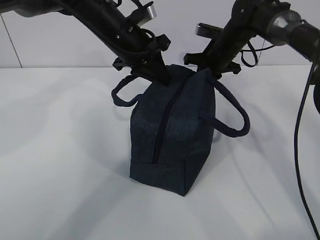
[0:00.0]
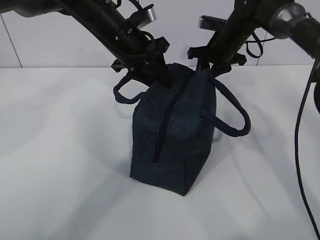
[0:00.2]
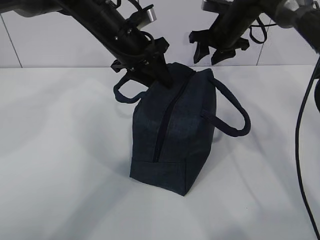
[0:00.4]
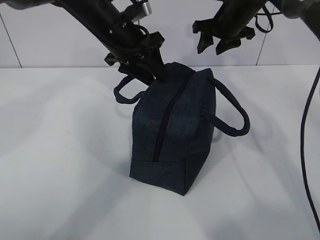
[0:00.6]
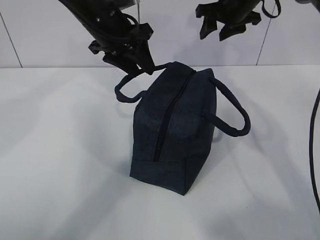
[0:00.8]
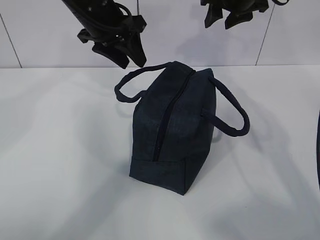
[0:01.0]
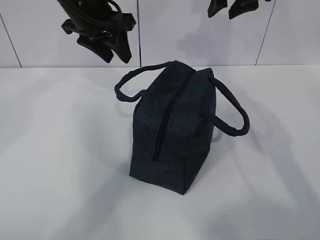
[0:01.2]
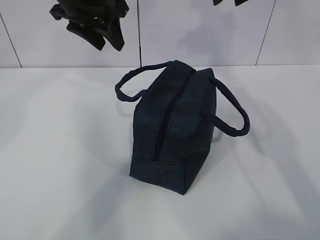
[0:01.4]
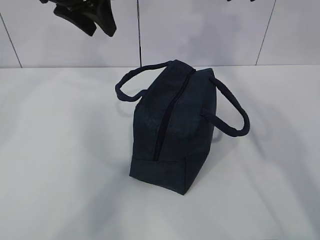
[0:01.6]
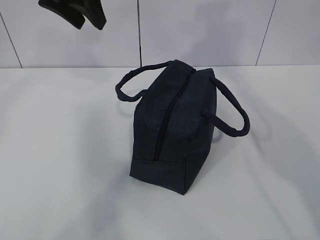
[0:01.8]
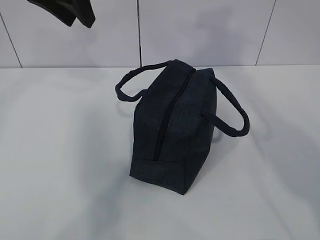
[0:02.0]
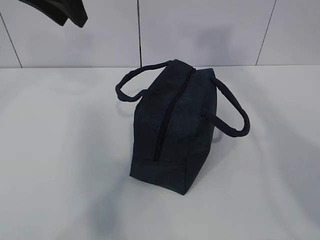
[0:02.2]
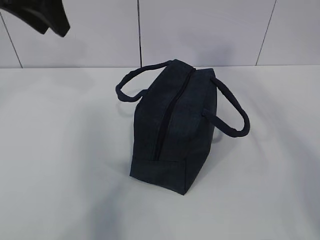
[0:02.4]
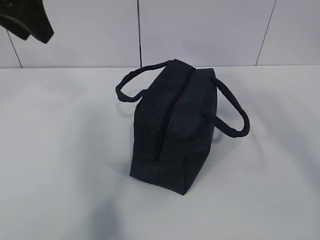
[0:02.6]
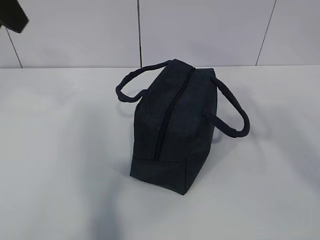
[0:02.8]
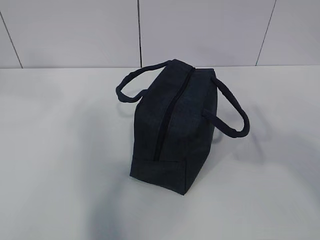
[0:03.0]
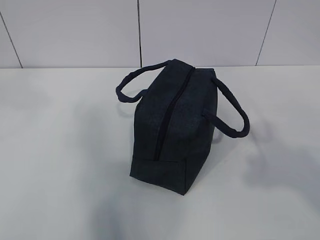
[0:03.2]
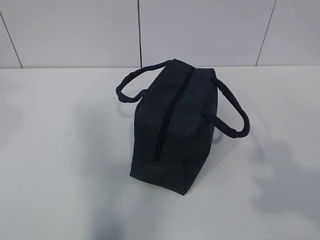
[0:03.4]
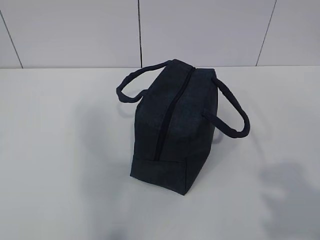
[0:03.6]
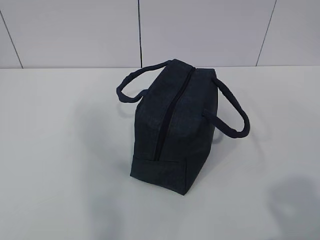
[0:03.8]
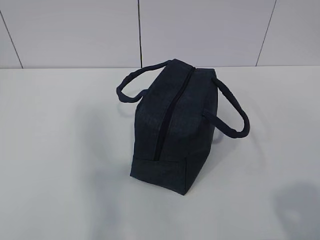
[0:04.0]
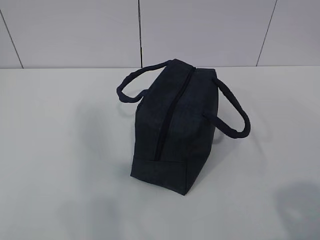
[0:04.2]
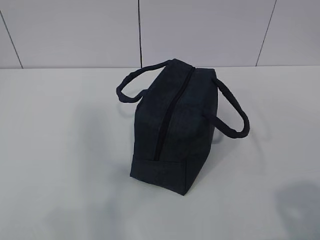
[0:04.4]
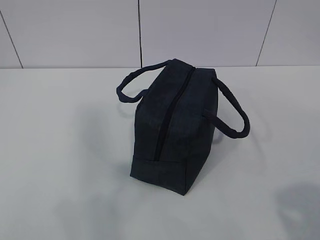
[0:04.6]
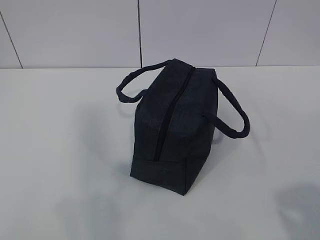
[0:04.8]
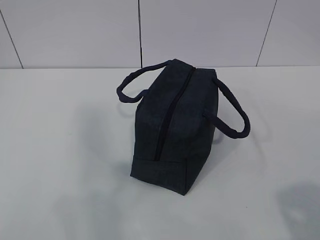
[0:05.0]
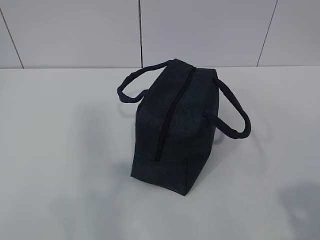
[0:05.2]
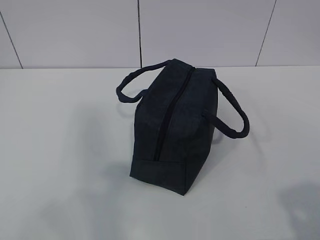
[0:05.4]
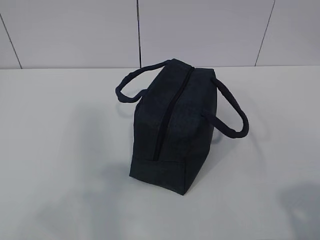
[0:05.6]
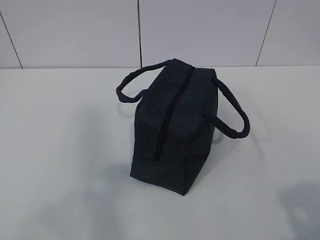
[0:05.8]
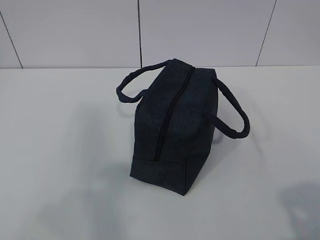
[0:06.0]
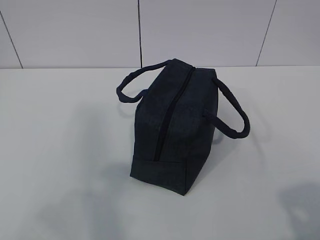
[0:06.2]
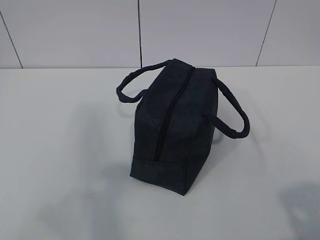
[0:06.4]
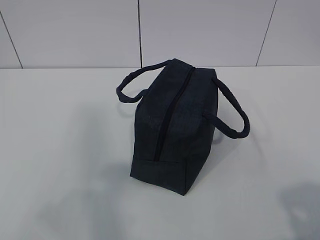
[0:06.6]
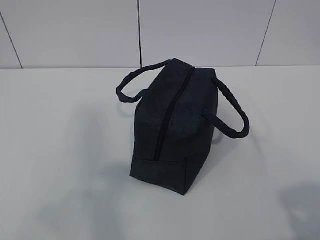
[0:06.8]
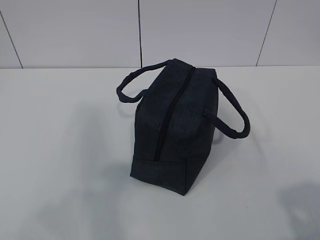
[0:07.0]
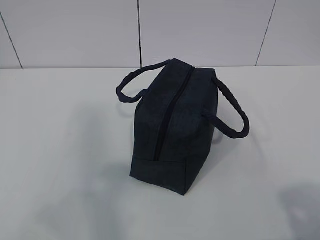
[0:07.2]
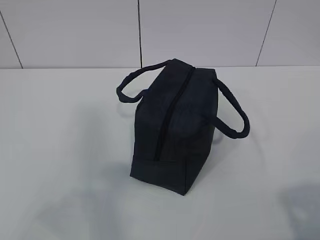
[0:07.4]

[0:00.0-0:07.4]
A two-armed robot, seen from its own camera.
0:00.0 to 0:01.4: The right gripper is displaced upward by roughly 20 cm, and opens its fingers, while the left gripper shifts about 10 cm upward and to the left, and opens.
0:01.4 to 0:03.0: The left gripper heads backward, upward and to the left, covering approximately 25 cm; the right gripper is displaced backward by roughly 40 cm.
0:03.0 to 0:04.4: The right gripper goes roughly 15 cm downward and backward.
0:06.0 to 0:07.4: Neither gripper changes place.

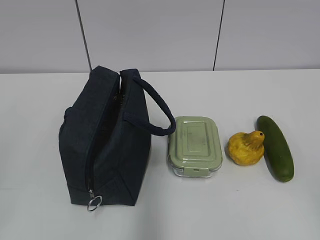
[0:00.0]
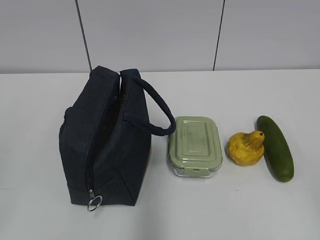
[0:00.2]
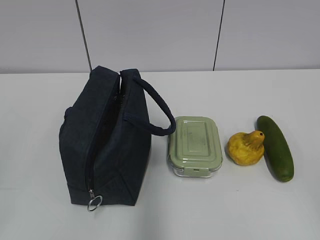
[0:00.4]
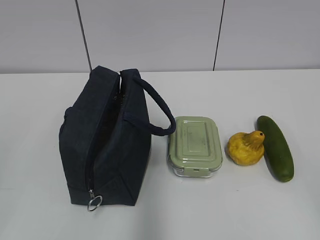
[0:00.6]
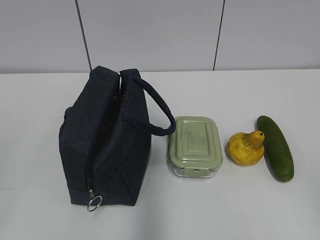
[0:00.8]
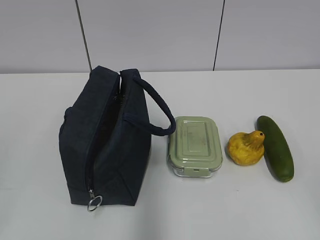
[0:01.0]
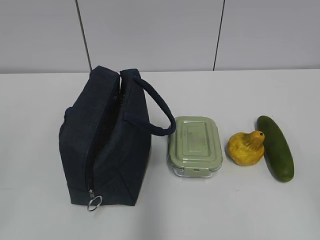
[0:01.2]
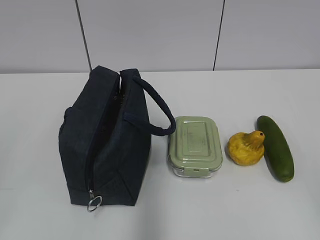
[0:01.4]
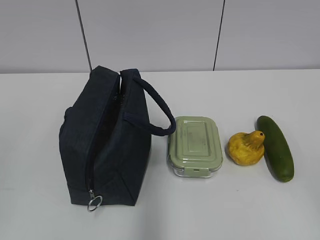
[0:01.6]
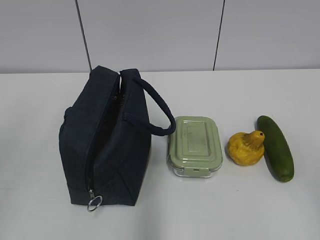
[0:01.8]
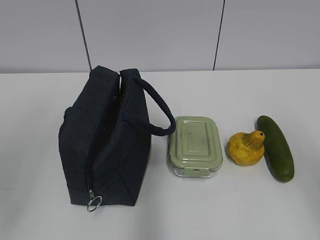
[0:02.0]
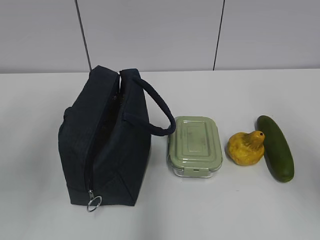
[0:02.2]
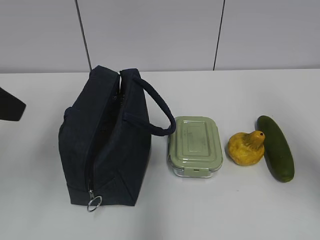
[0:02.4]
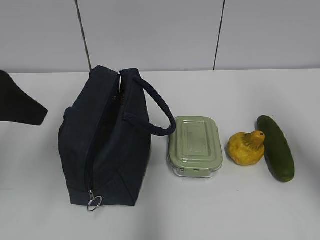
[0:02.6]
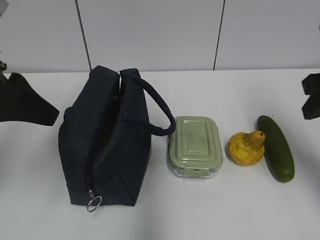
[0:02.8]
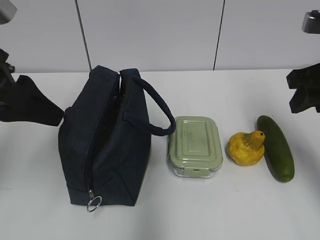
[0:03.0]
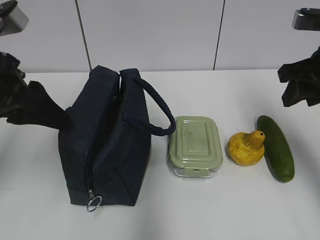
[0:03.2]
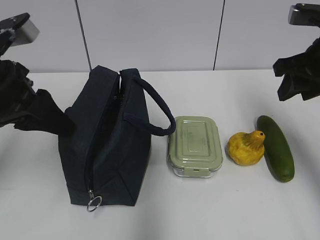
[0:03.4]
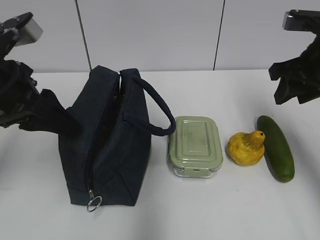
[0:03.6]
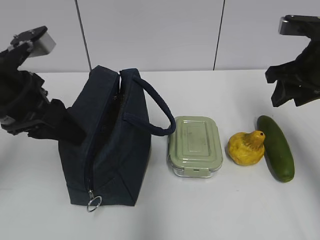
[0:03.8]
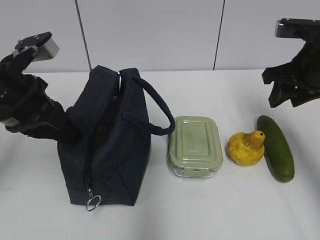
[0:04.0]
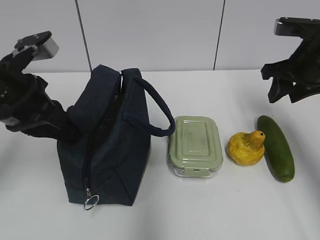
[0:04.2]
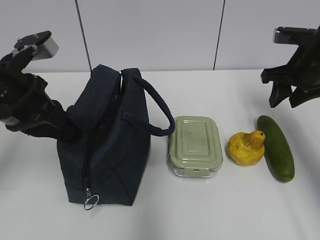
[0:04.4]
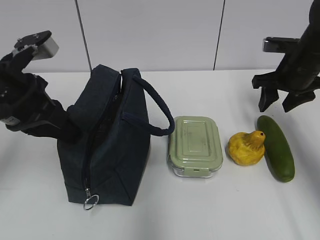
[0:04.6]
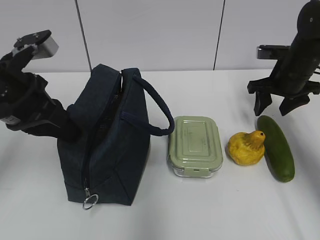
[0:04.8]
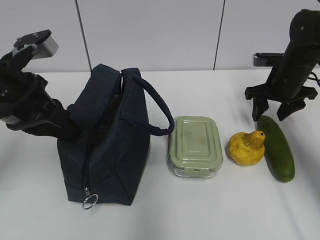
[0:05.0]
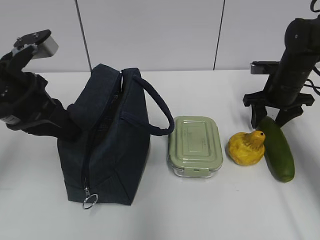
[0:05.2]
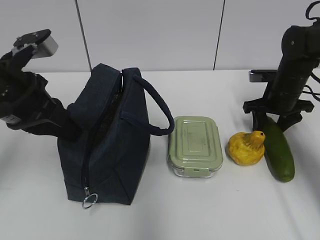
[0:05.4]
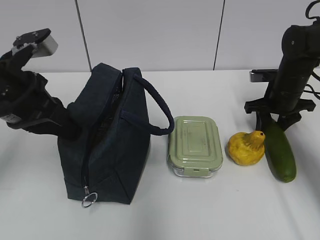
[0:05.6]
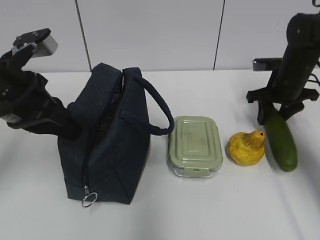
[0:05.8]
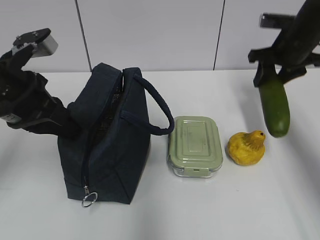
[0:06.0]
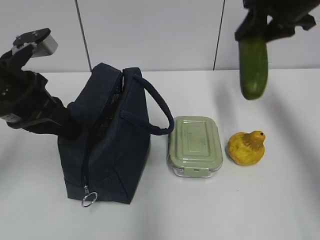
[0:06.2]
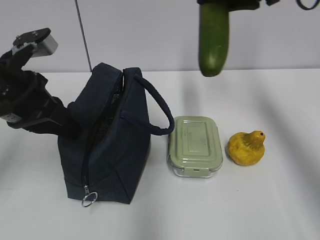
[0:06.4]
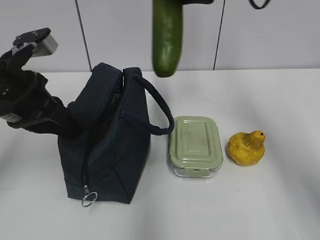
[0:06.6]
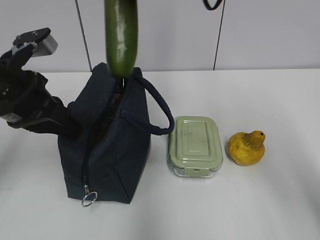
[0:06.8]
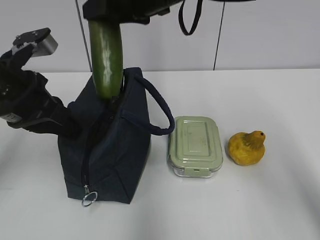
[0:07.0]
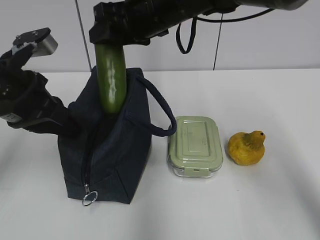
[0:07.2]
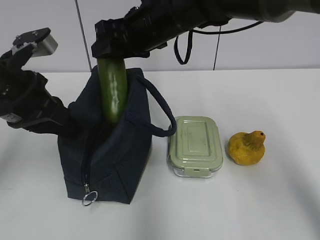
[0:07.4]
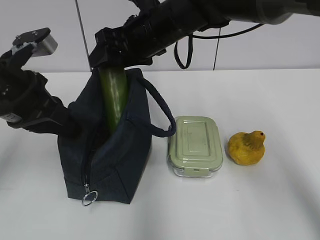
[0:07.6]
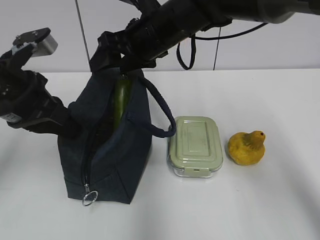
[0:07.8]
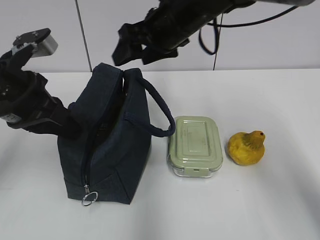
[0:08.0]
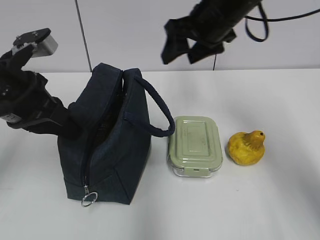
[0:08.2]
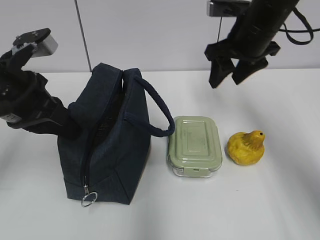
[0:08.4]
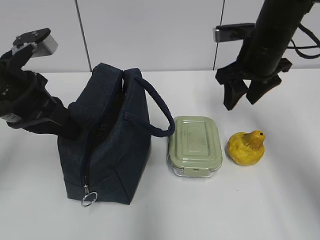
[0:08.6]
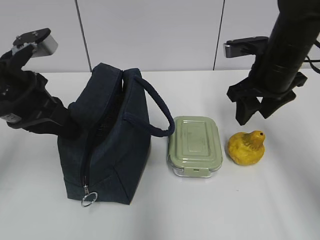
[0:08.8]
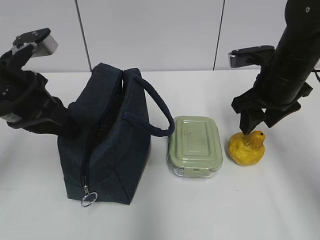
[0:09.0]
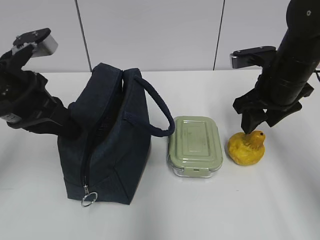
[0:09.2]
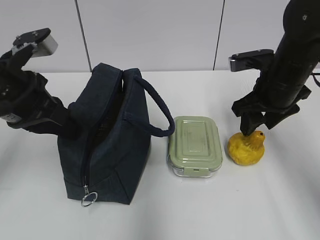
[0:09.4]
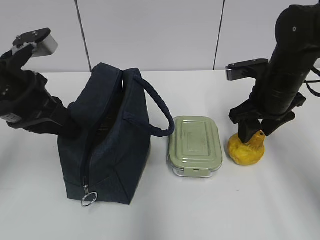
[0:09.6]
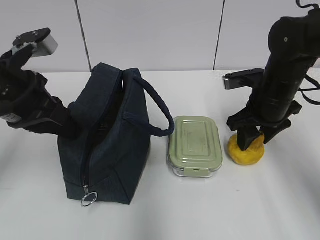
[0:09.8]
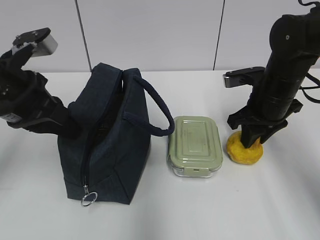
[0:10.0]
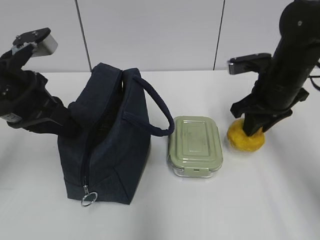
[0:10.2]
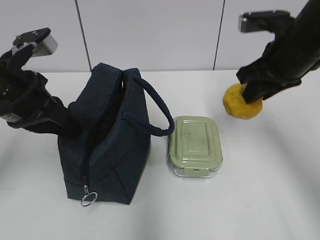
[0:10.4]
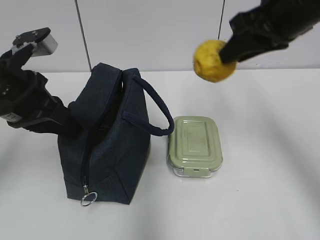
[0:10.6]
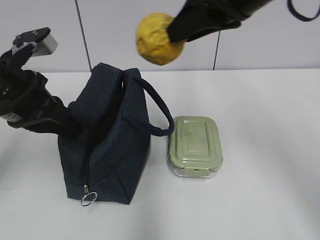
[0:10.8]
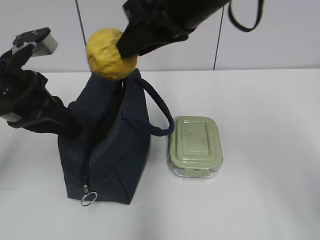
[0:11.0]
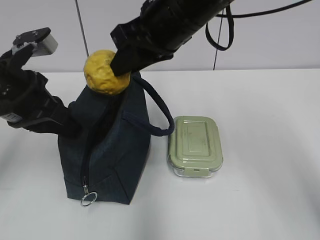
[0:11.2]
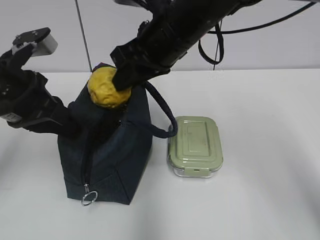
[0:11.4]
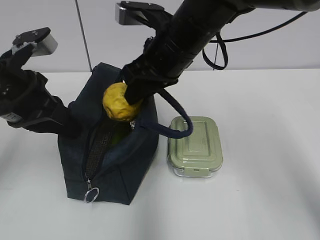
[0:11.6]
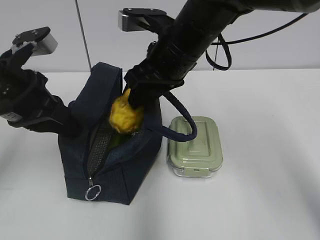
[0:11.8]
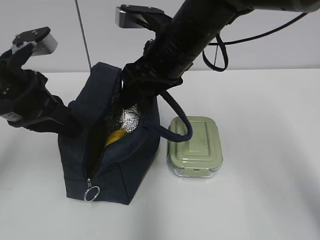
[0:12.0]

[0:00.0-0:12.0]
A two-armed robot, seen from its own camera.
0:01.6 to 0:03.0: The left gripper moves forward and to the right, some 25 cm. The right gripper travels forward by about 30 cm.
0:03.0 to 0:04.4: The right gripper goes about 10 cm forward and downward; the left gripper changes place by about 5 cm, and closes.
0:04.4 to 0:06.0: The right gripper reaches approximately 10 cm downward, then returns.
0:06.0 to 0:07.6: The right gripper heads to the left, covering approximately 25 cm.
0:07.6 to 0:09.0: The right gripper is displaced to the right by approximately 20 cm.
0:09.0 to 0:10.4: The right gripper travels upward by some 5 cm, and closes.
0:10.4 to 0:12.0: The right gripper is displaced to the left by roughly 15 cm, and opens up.

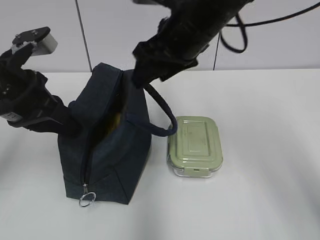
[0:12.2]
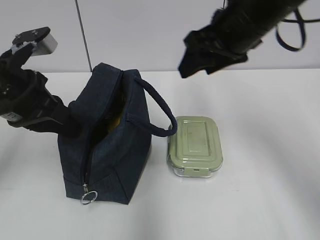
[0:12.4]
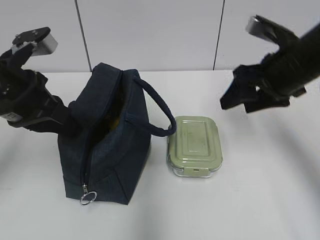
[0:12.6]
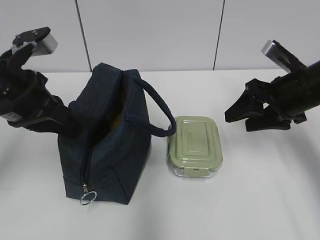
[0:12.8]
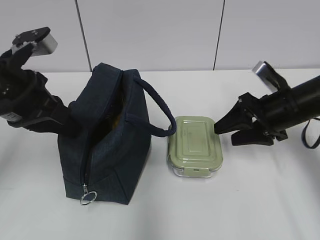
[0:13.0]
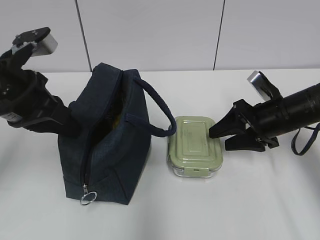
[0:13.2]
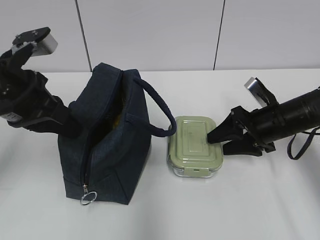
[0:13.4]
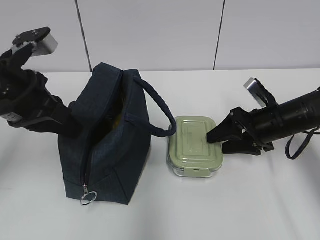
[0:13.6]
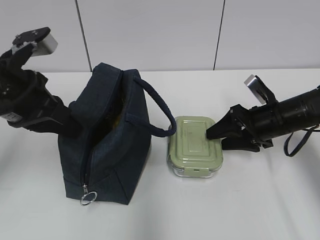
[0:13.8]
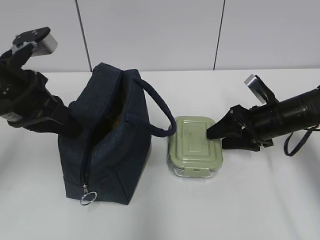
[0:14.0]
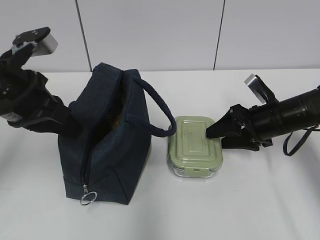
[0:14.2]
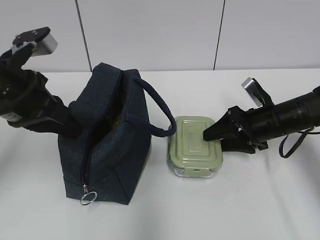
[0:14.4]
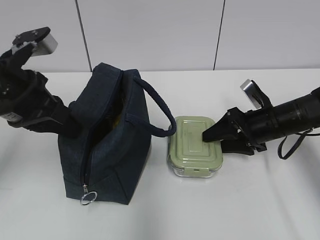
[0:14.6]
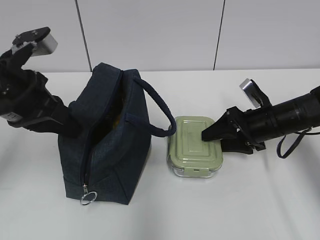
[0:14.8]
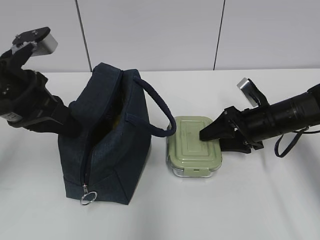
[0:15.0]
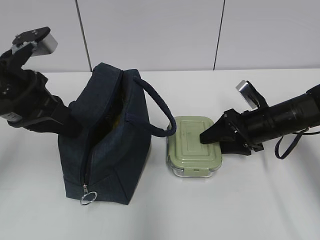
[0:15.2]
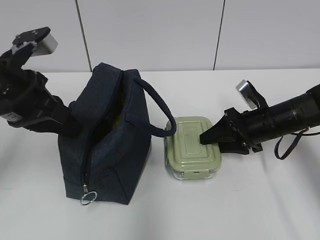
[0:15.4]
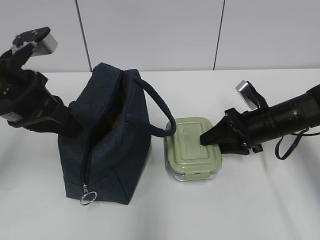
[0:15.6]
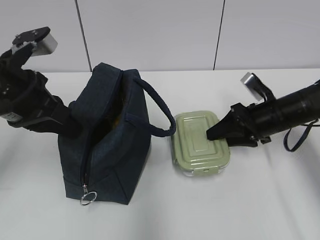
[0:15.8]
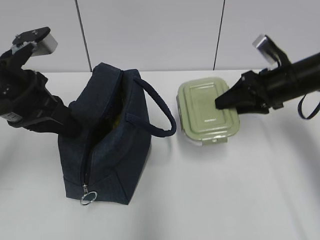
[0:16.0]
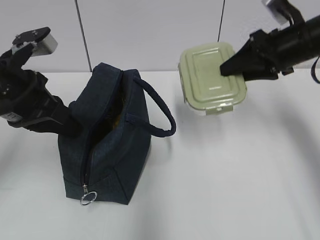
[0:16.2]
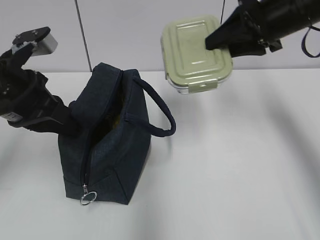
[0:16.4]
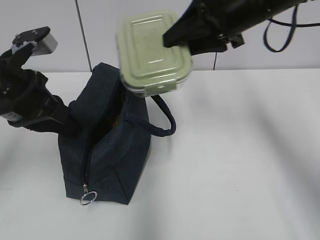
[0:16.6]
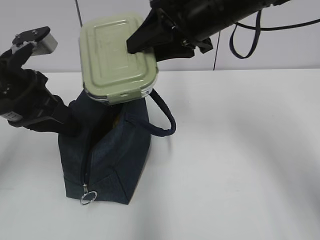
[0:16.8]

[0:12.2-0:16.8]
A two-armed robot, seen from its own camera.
0:12.2 to 0:13.8: The right gripper travels downward and to the right by about 25 cm.
0:13.8 to 0:15.2: There are only small adjustments of the grippers.
0:15.2 to 0:16.8: The right gripper is displaced upward and to the left by some 25 cm.
